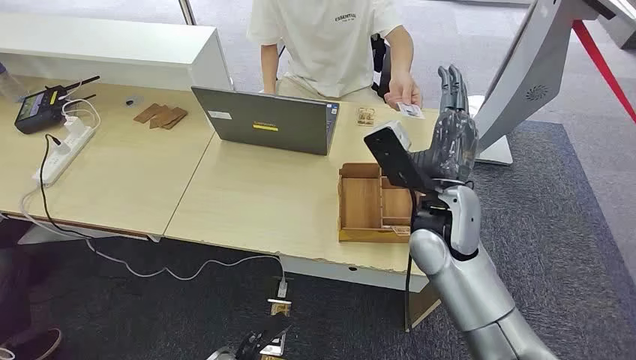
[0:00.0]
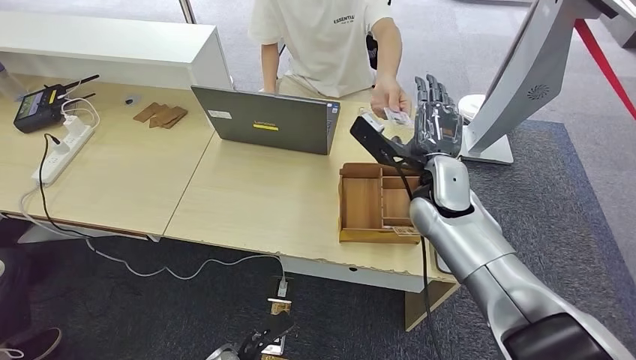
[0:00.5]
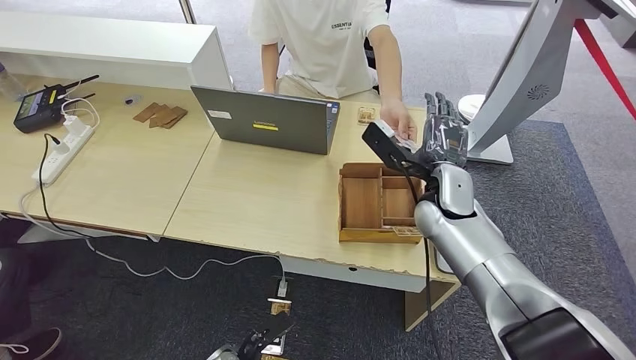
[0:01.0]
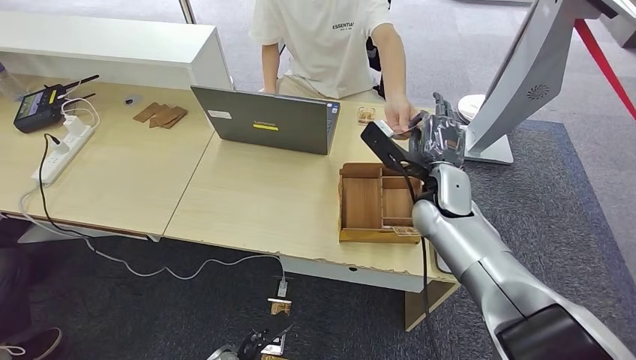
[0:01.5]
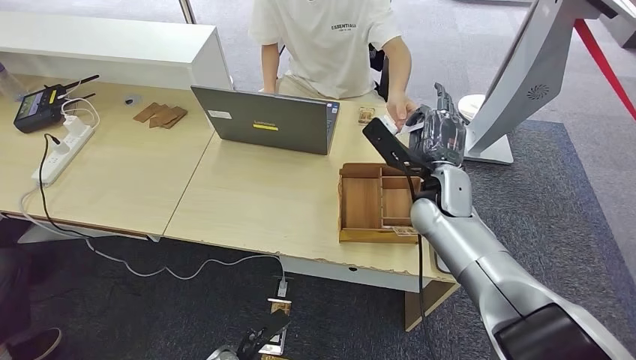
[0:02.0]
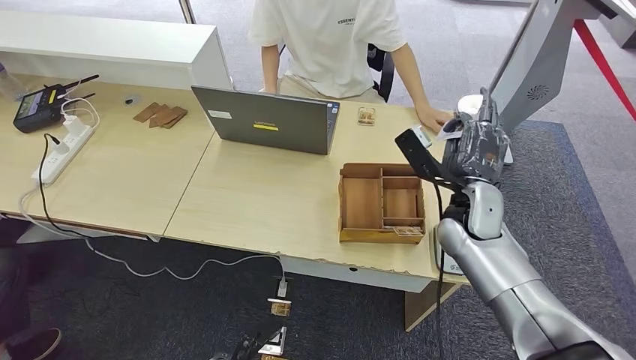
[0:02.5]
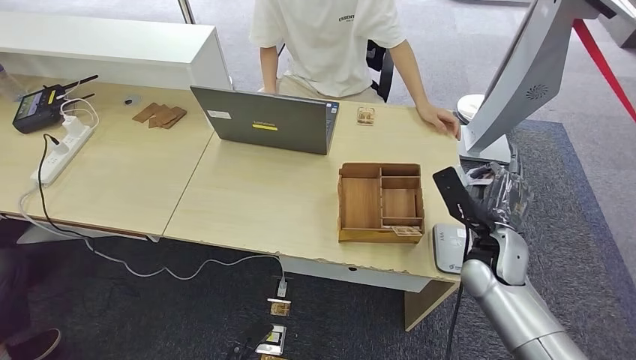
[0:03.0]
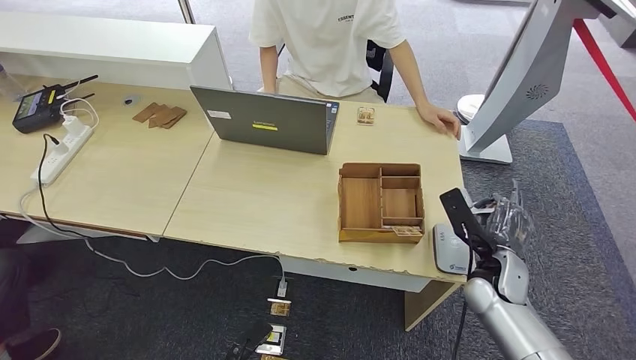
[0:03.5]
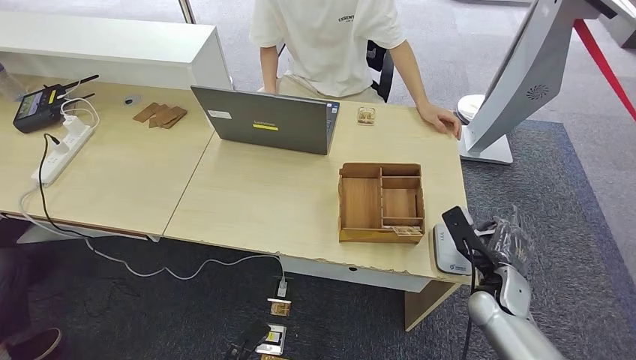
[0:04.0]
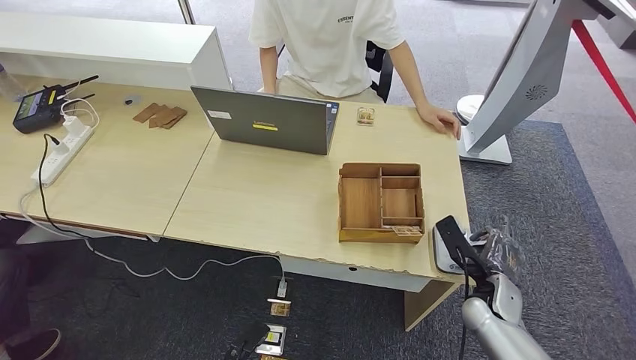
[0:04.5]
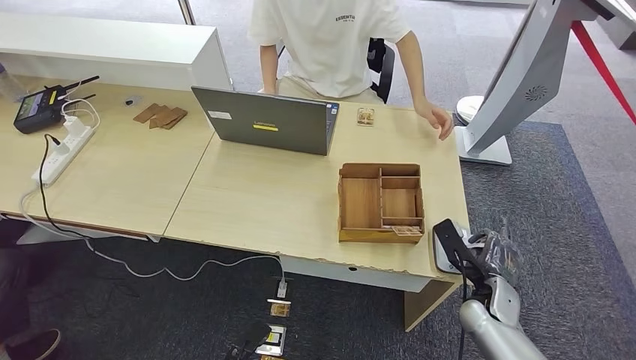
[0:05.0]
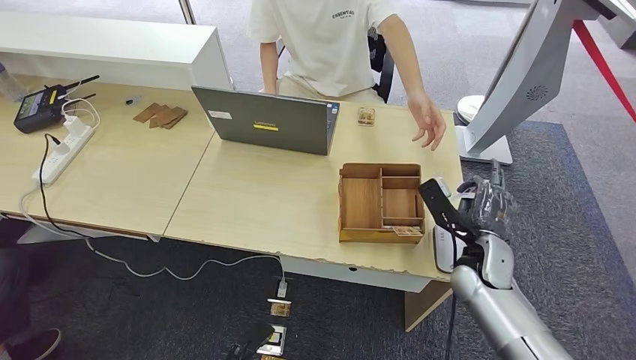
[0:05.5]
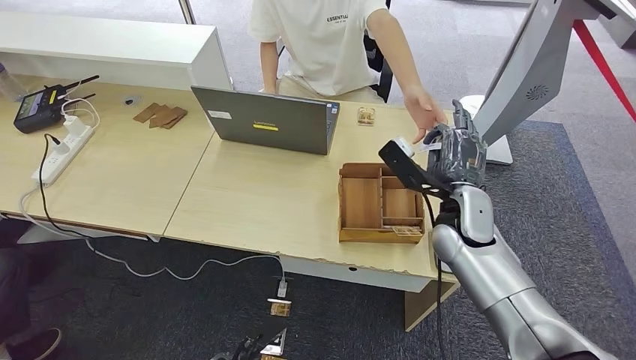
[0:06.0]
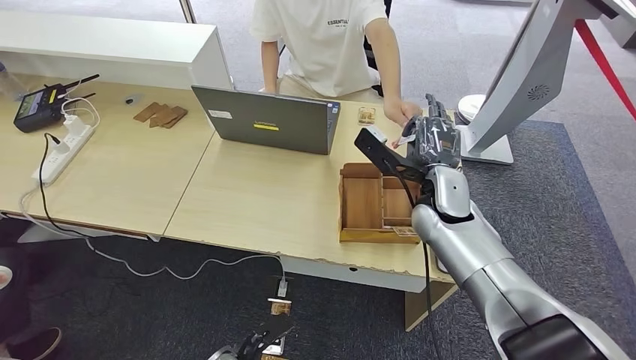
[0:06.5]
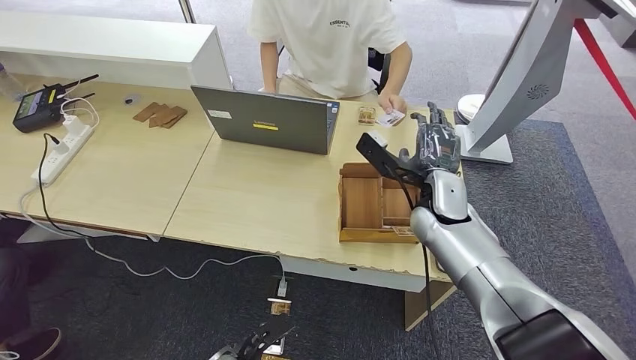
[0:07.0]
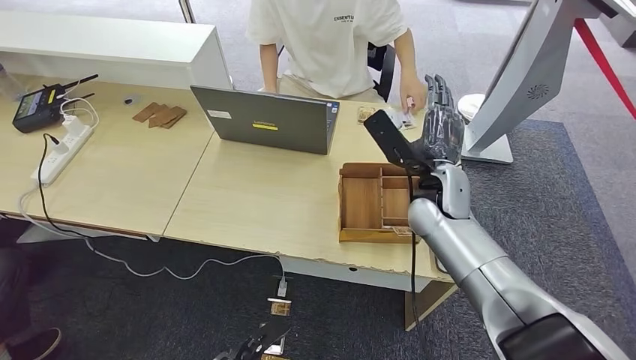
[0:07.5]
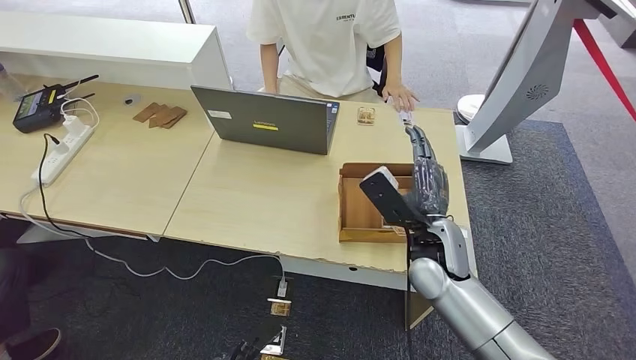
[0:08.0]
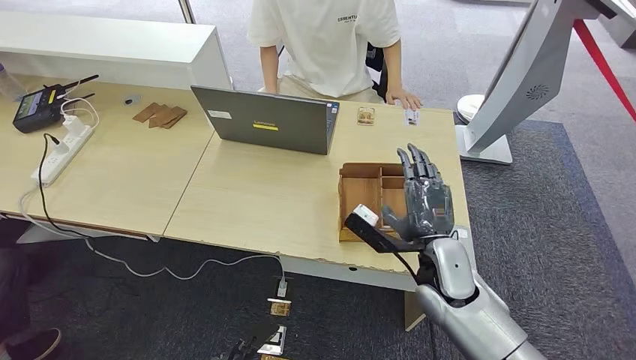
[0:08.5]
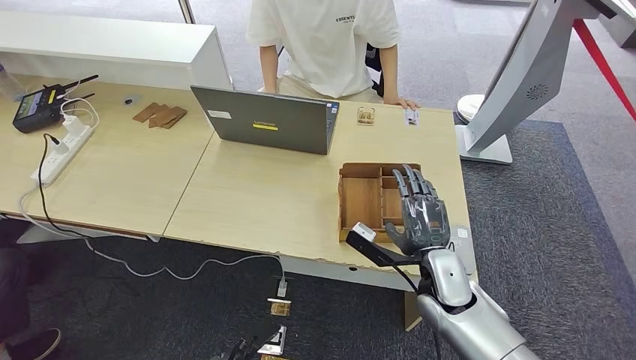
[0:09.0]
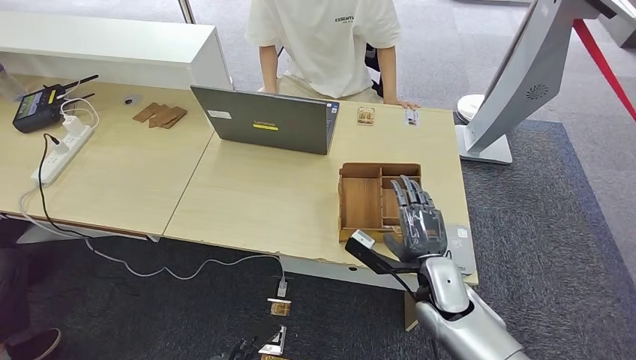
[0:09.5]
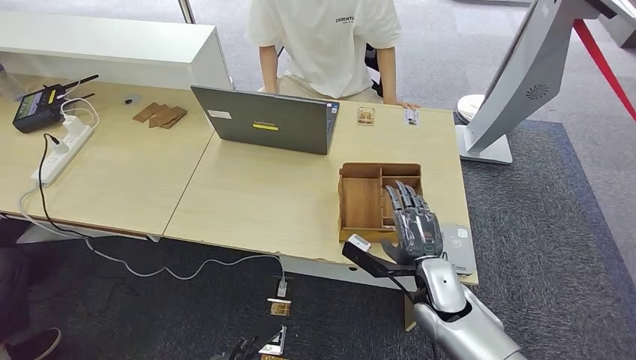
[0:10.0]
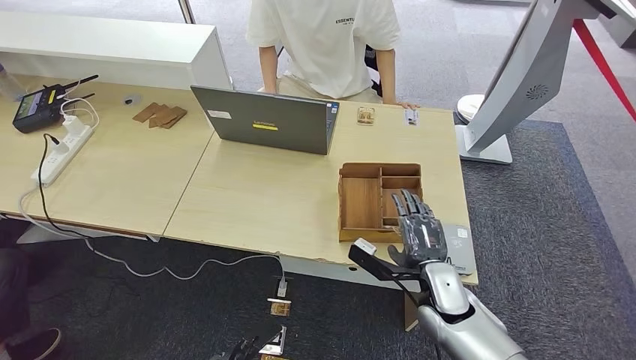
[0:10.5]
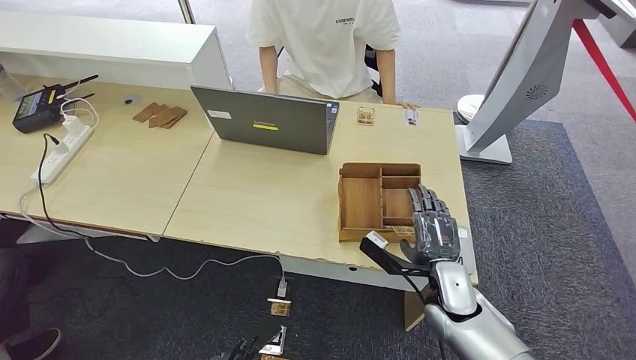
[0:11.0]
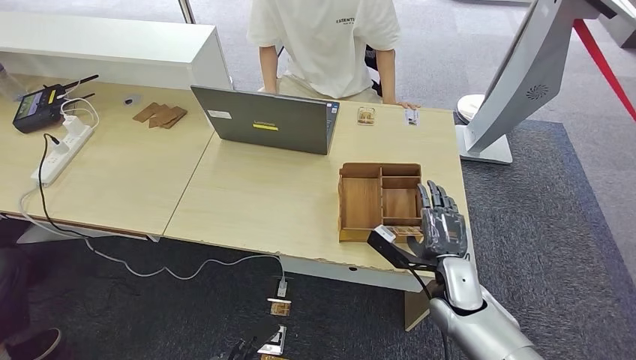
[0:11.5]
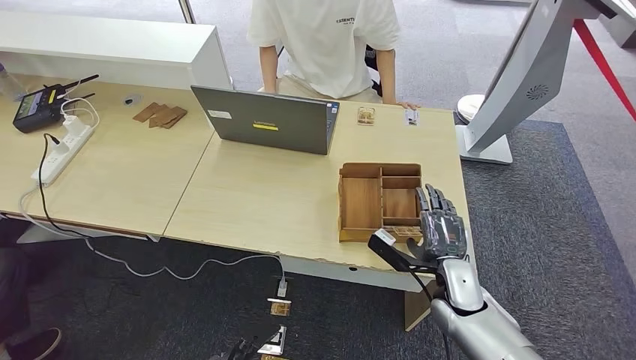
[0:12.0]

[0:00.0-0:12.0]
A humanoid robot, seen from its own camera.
Step, 0:00.0 to 0:03.0: Take the ID card from the person's hand.
Step, 0:03.5 to 0:06.0: Place the ID card on the card reader.
Step, 0:06.5 to 0:08.0: Hand the ID card to the person.
0:02.0 to 0:04.0: The right hand travels downward, to the right and backward by approximately 25 cm.
0:04.0 to 0:06.0: The right hand heads upward, to the left and forward, covering about 20 cm.
0:06.0 to 0:08.0: The right hand is displaced backward by roughly 5 cm.
0:08.0 to 0:10.0: The right hand heads downward, covering approximately 10 cm.
0:10.0 to 0:12.0: The right hand shifts by about 5 cm.

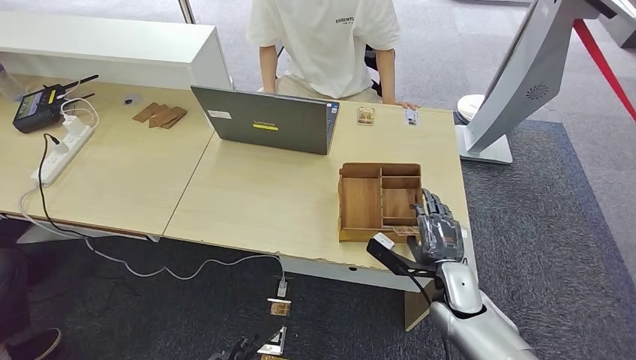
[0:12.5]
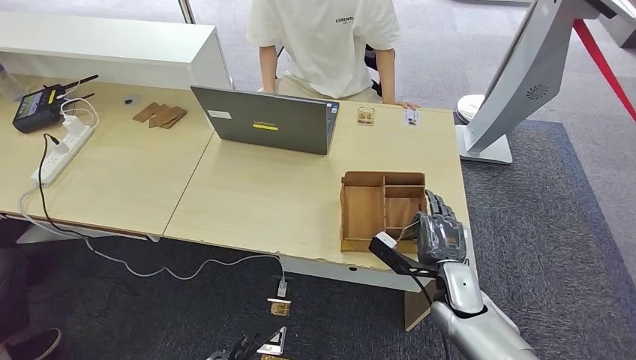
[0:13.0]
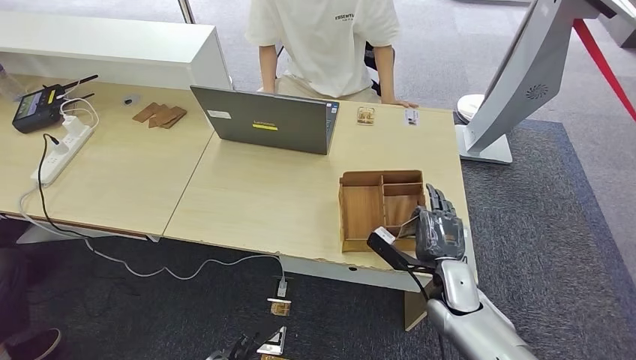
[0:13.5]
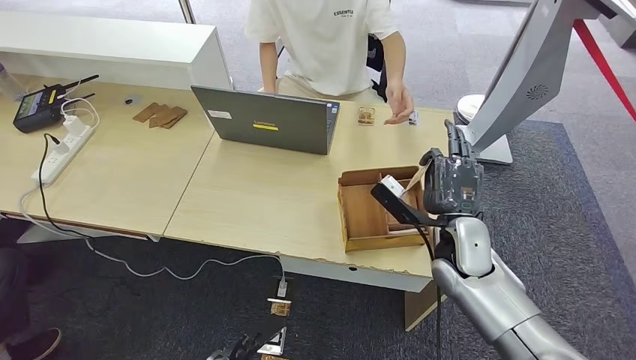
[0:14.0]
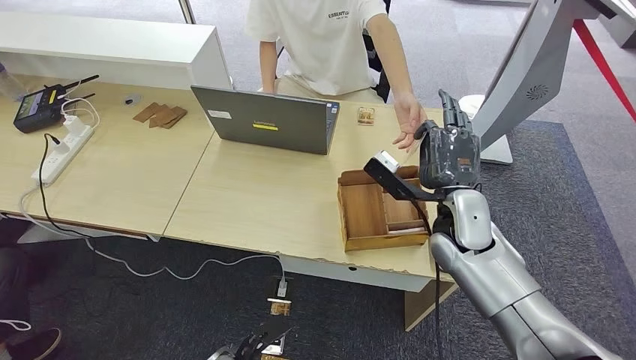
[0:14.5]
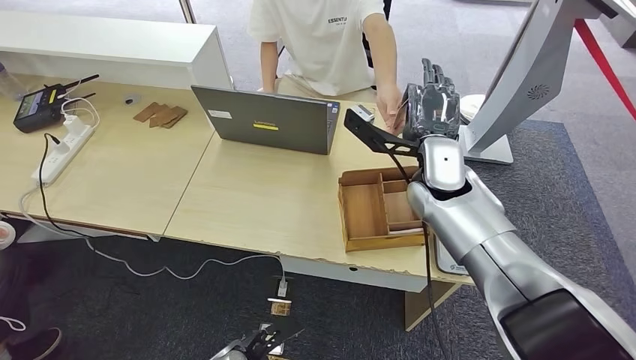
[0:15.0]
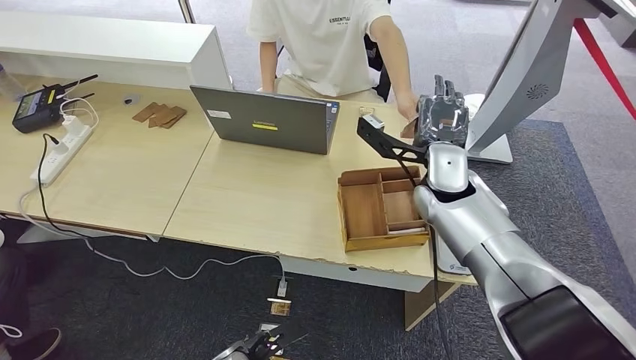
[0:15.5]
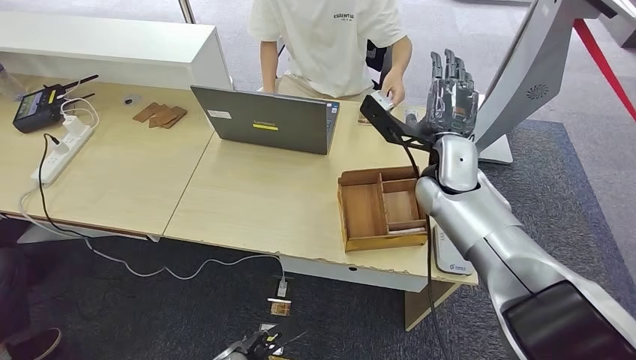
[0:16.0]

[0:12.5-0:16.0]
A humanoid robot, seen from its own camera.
Step, 0:12.5 to 0:14.0: Pick up the room key from the key card box.
Step, 0:14.5 to 0:16.0: Hand the room key to the person.
0:12.5 to 0:14.5: The right hand is displaced upward and forward by about 15 cm.
0:14.5 to 0:16.0: The right hand is displaced upward and forward by roughly 5 cm.
